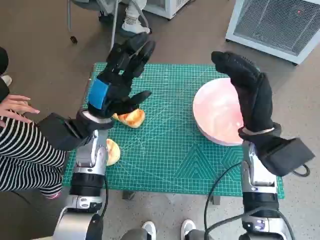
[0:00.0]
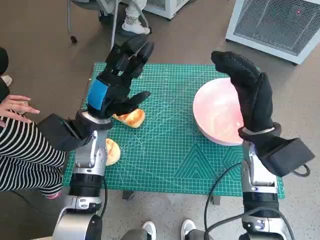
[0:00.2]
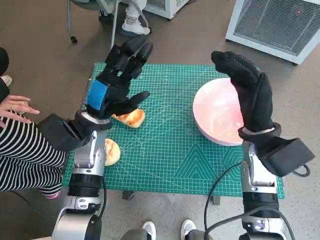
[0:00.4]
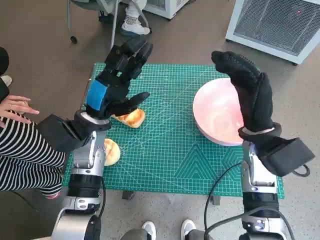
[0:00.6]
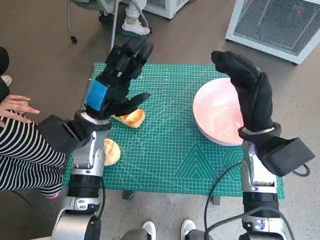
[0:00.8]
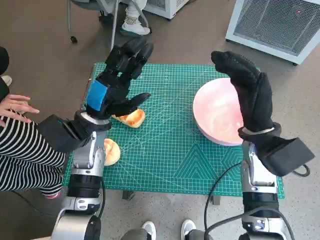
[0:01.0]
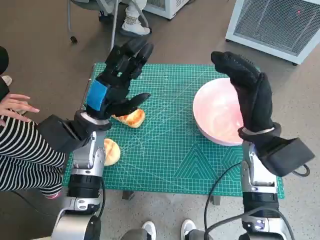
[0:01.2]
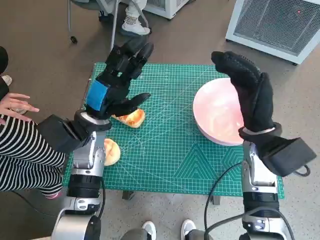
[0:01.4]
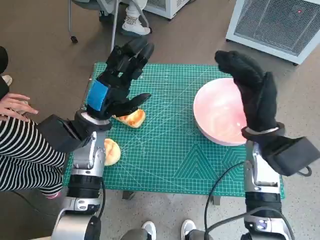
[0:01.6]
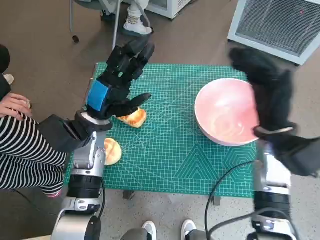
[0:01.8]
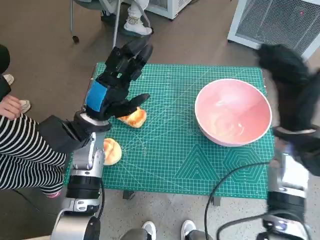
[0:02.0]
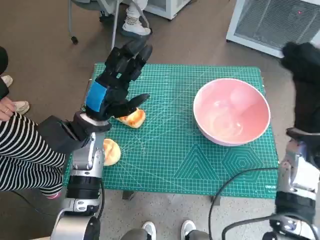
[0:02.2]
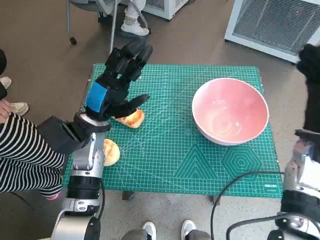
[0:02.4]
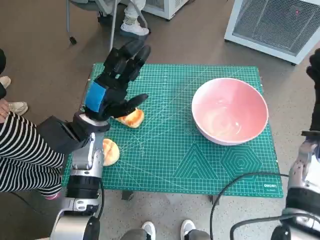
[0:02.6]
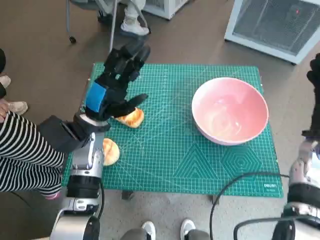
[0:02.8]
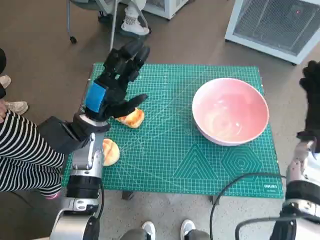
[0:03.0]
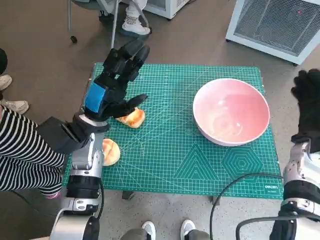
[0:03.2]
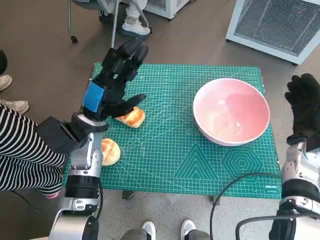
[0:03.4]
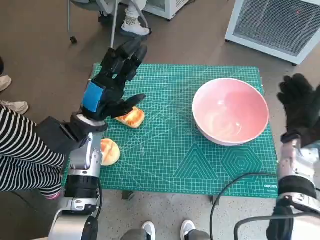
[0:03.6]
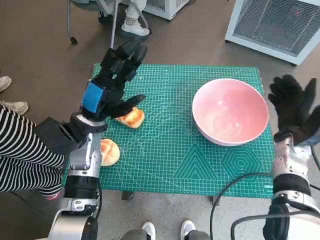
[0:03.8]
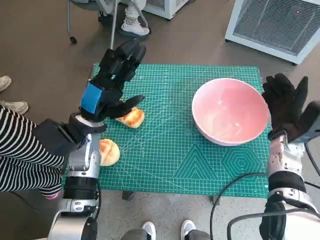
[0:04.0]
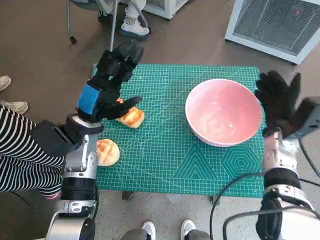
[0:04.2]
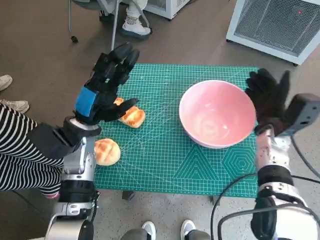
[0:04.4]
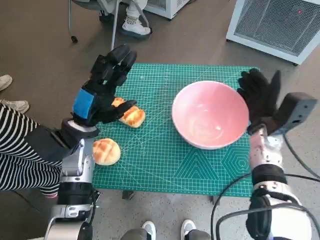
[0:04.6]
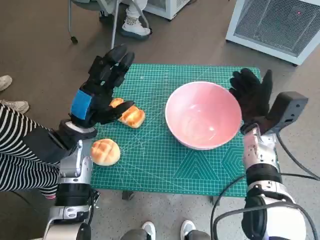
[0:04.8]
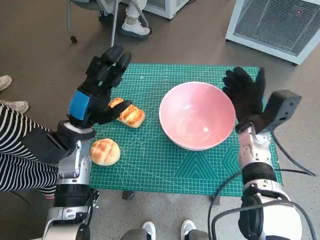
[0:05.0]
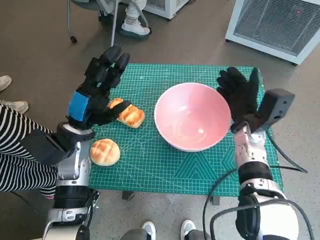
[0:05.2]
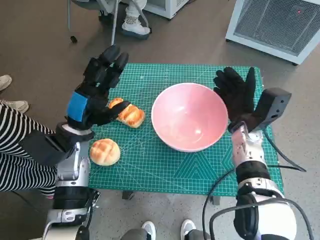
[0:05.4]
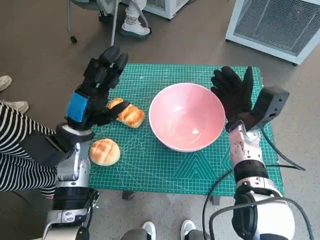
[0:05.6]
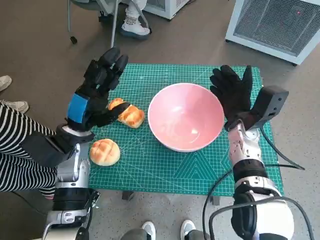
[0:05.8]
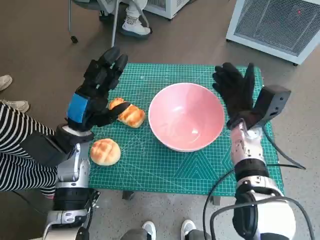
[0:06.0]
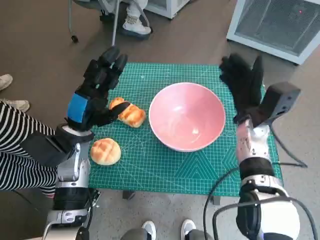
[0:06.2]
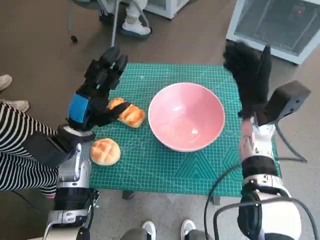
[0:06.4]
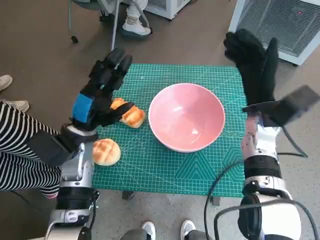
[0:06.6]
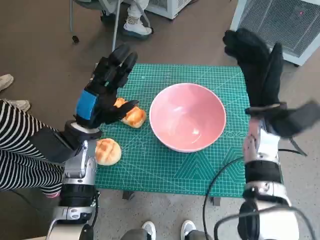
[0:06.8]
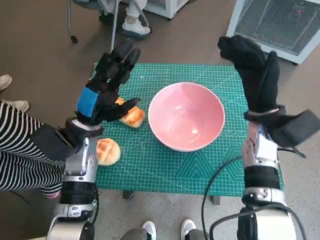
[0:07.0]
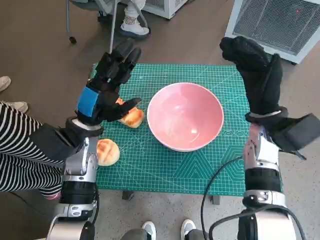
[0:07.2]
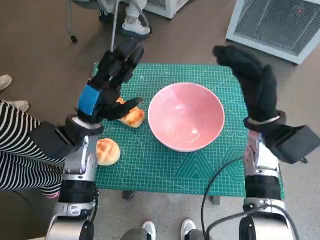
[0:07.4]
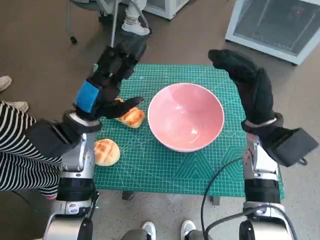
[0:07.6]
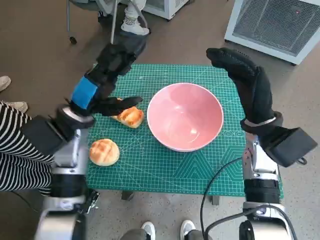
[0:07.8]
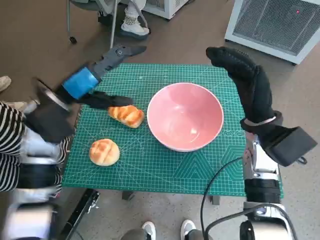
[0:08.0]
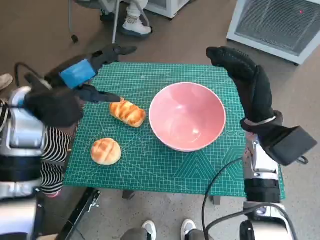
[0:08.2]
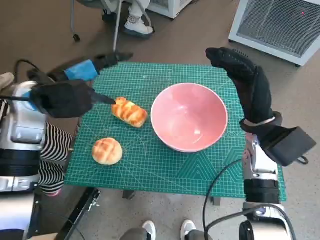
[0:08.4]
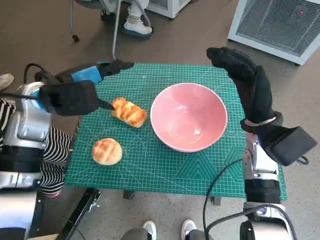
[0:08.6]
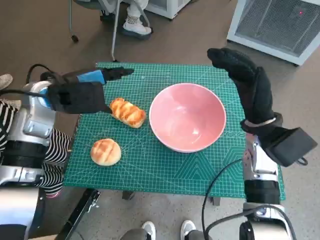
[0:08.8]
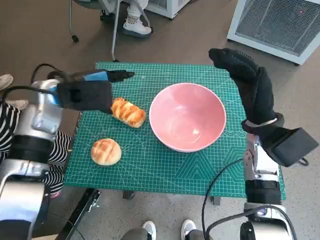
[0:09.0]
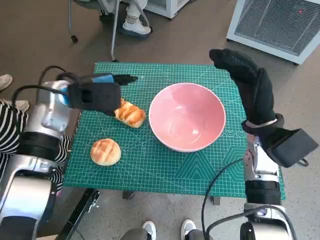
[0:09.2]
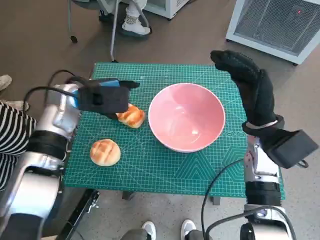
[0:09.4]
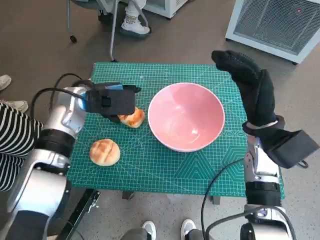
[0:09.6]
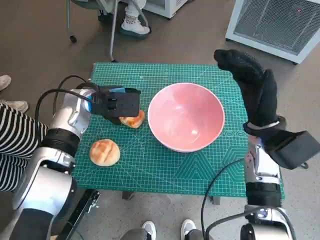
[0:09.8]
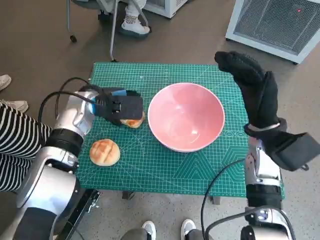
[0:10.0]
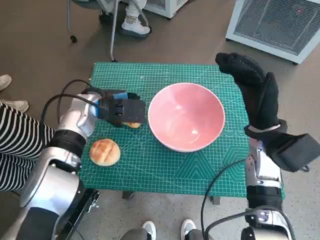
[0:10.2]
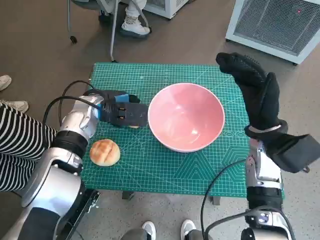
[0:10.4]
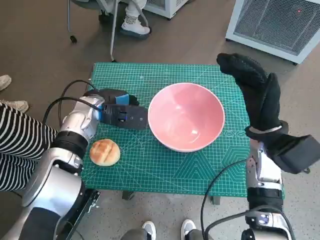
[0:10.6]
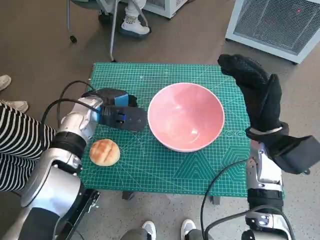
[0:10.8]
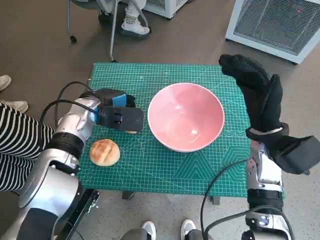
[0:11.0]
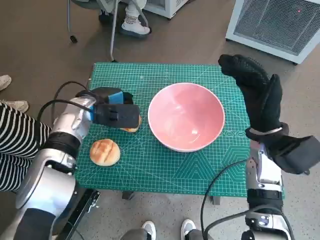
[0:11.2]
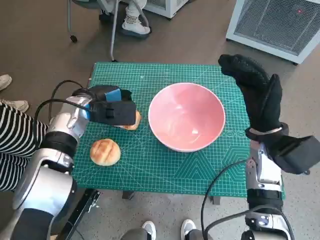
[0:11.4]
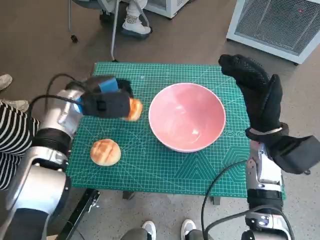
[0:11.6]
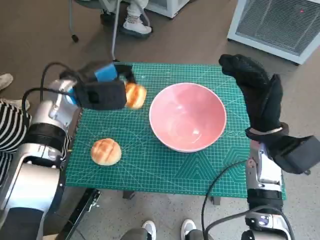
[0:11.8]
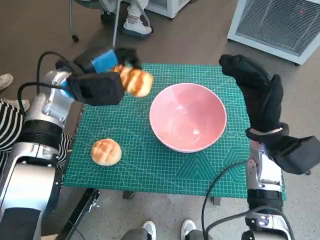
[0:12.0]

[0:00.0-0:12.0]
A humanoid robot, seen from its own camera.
Task of the whole recording: Push the bowl into the center of the table and put the bread into the bowl.
Step, 0:00.0 to 0:05.8: Move the pink bowl to the center of table with right hand.
Step, 0:06.2 to 0:10.8: Grasp the long bread with left hand.
0:01.6 to 0:03.0: The right hand heads to the right, covering approximately 10 cm.
0:03.0 to 0:04.4: The right hand travels to the left by approximately 5 cm.
0:04.4 to 0:06.0: The right hand is displaced to the left by some 5 cm.
0:06.0 to 0:07.6: The right hand heads upward, covering about 5 cm.
0:07.6 to 0:09.0: The left hand goes some 5 cm upward.
0:09.0 to 0:10.4: The left hand moves downward, roughly 5 cm.
0:10.4 to 0:12.0: The left hand heads upward, covering roughly 5 cm.

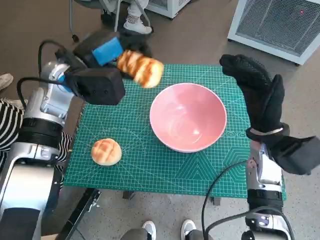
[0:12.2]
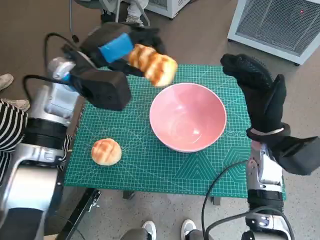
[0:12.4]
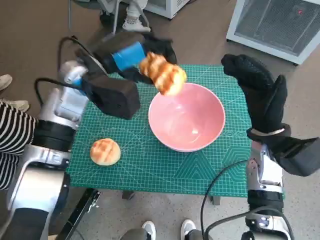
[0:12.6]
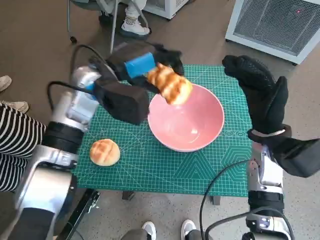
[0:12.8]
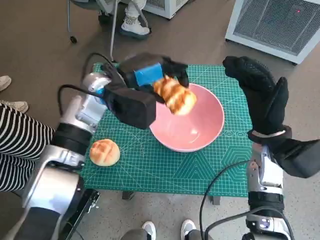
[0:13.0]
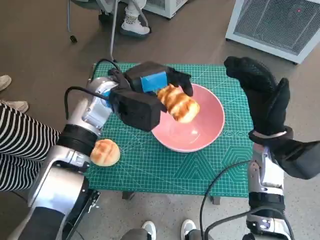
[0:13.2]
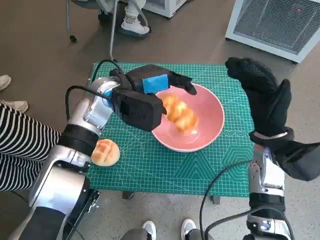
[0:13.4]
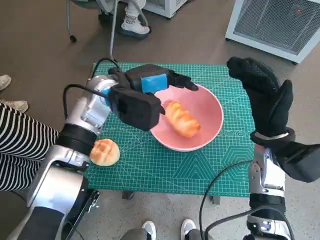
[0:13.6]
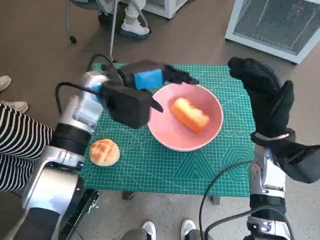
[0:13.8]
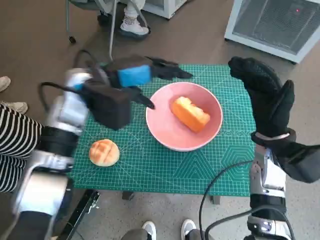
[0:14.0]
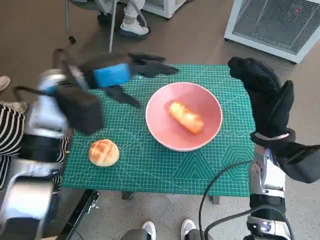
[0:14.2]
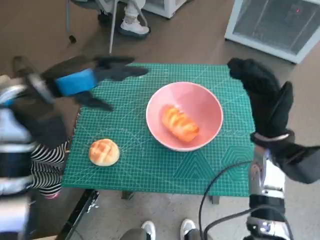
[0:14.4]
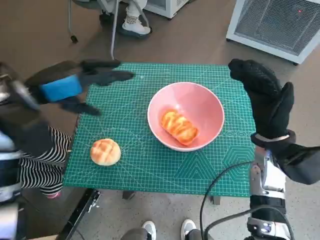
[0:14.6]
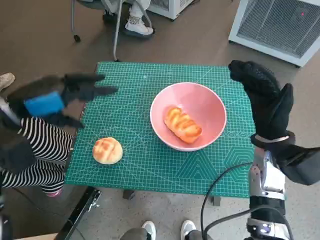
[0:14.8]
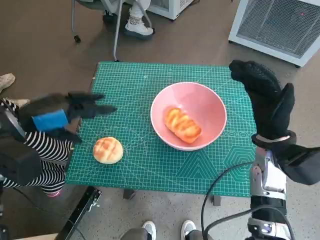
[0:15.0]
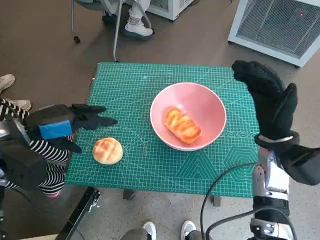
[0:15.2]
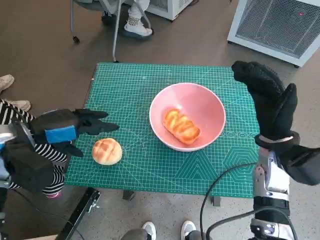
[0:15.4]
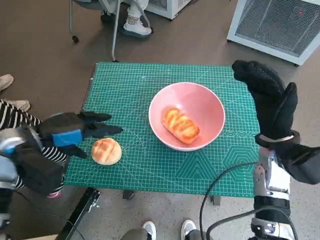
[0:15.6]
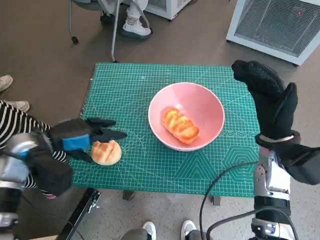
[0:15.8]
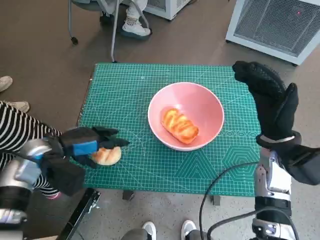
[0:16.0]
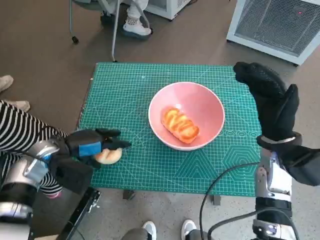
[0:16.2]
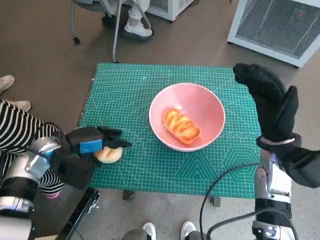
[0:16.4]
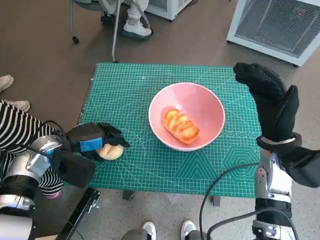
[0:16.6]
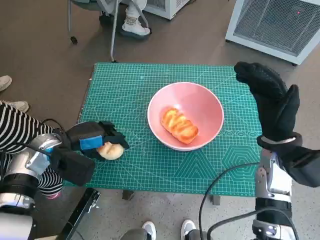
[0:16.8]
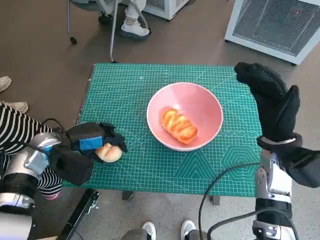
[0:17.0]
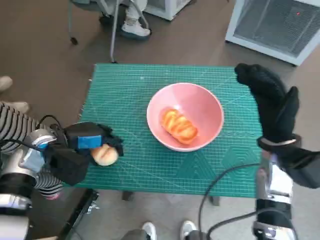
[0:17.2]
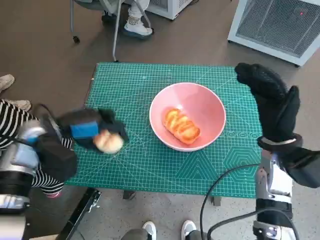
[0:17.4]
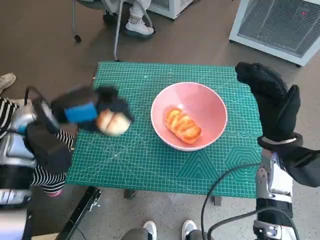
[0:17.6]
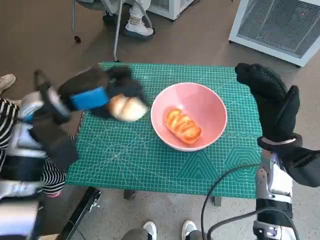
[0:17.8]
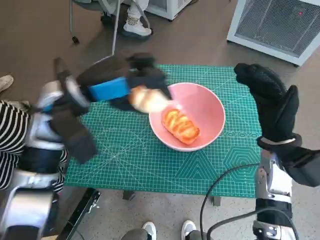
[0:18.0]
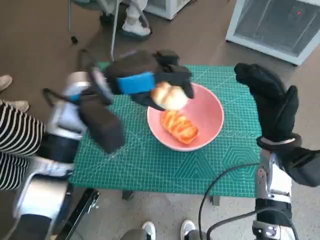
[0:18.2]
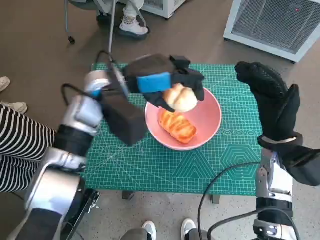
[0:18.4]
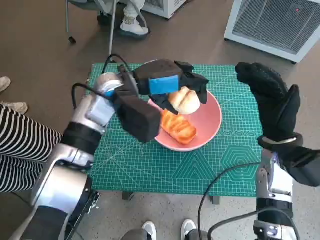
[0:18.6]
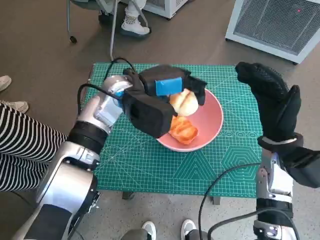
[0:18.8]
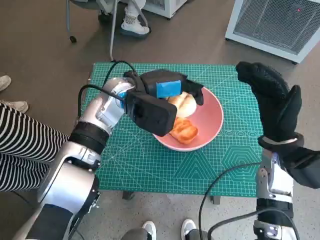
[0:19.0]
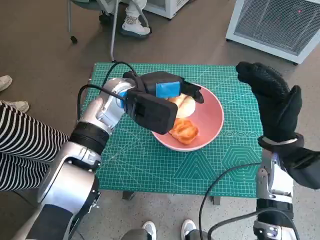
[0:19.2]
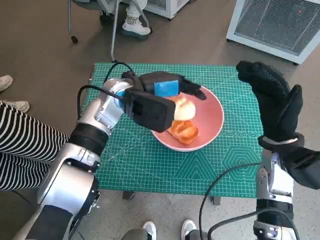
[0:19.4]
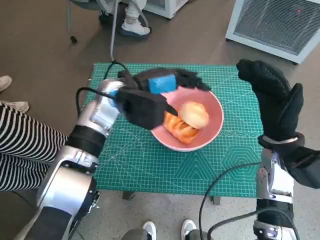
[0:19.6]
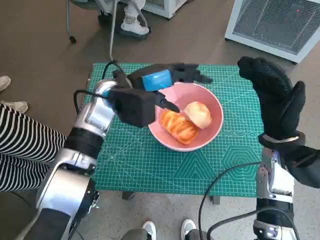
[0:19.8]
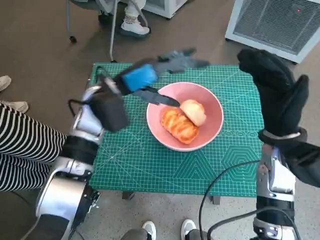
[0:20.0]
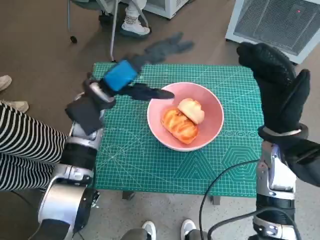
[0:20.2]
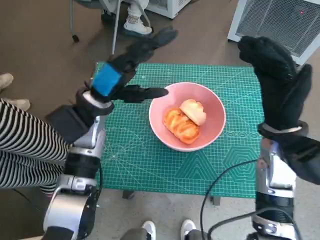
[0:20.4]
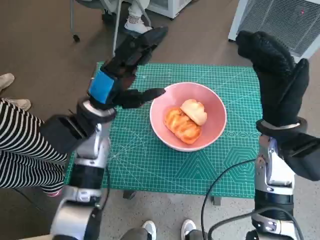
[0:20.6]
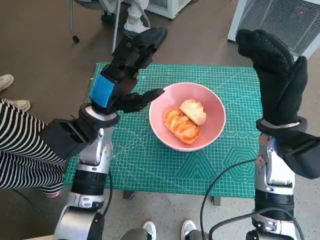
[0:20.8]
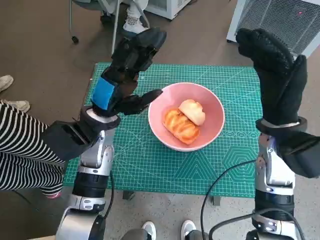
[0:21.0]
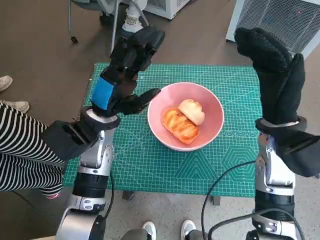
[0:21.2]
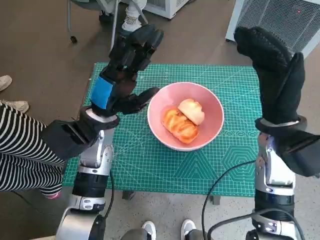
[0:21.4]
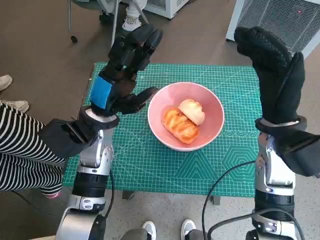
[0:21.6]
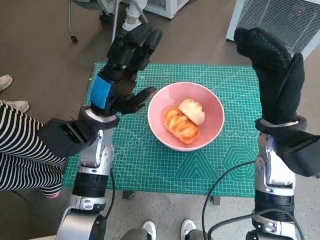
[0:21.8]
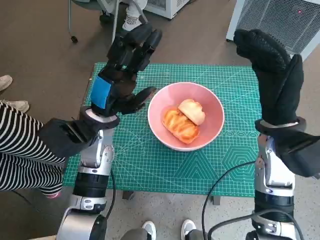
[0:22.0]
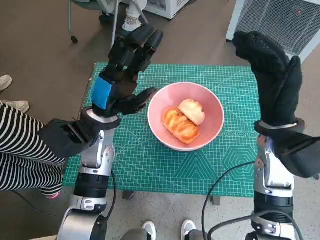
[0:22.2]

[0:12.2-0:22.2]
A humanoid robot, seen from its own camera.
Task of the whole recording: Push the bowl into the center of the table and put the bread into the bowl.
Step, 0:12.2 to 0:13.8: Place the long bread in pink bowl with left hand.
Step, 0:14.0 to 0:17.0: Grasp the round bread with left hand.
Step, 0:17.2 to 0:19.8: Place the round bread in pink bowl with left hand.
0:12.2 to 0:13.6: The left hand goes some 5 cm to the right.
0:13.6 to 0:15.0: The left hand moves to the left and backward, about 20 cm.
0:15.0 to 0:16.4: The left hand goes some 10 cm downward.
0:16.4 to 0:18.0: The left hand travels upward and to the right by some 15 cm.
0:18.0 to 0:19.4: The left hand moves to the right and forward, about 10 cm.
0:19.4 to 0:20.8: The right hand moves about 5 cm; the left hand heads backward, covering about 5 cm.
0:20.8 to 0:22.2: There are only small adjustments of the hands.
